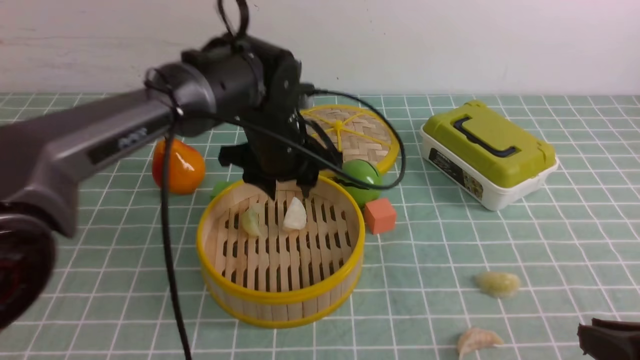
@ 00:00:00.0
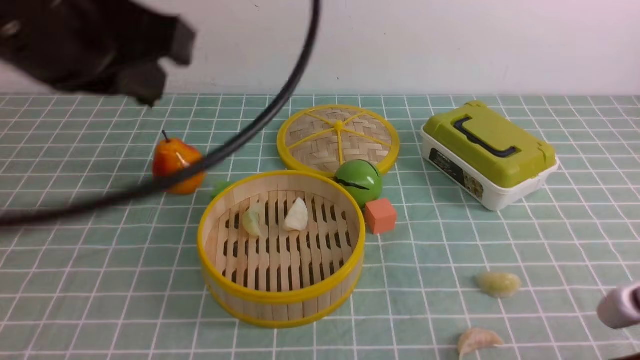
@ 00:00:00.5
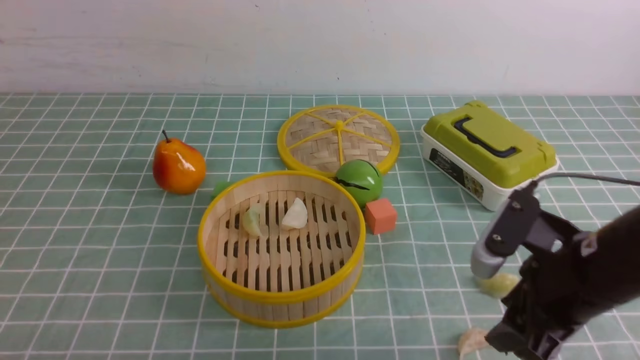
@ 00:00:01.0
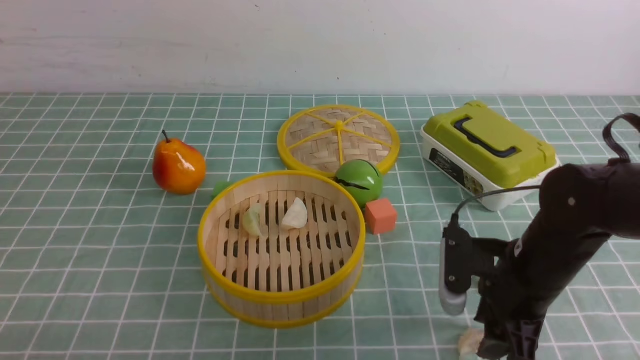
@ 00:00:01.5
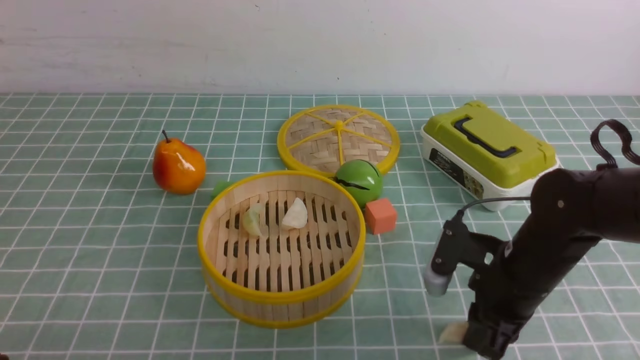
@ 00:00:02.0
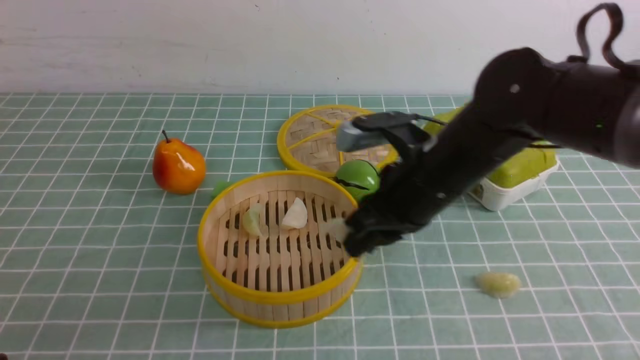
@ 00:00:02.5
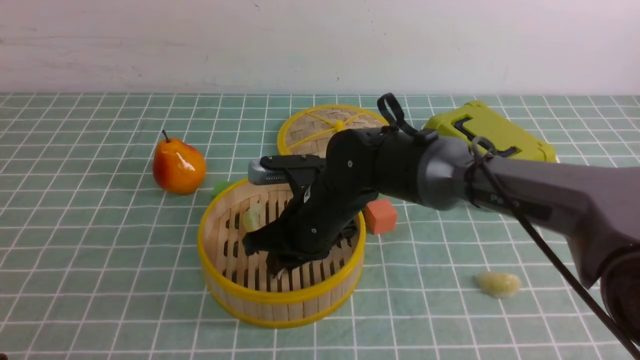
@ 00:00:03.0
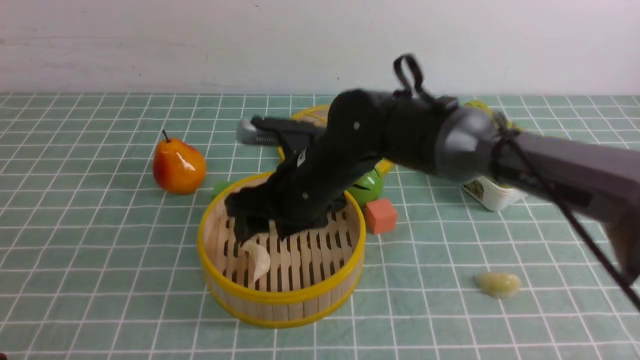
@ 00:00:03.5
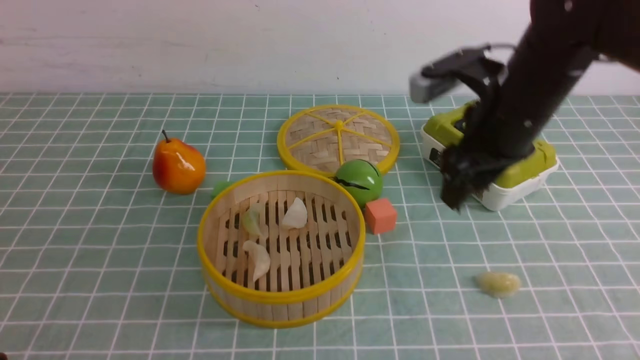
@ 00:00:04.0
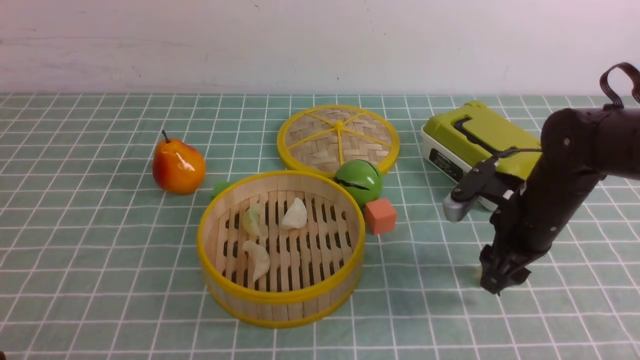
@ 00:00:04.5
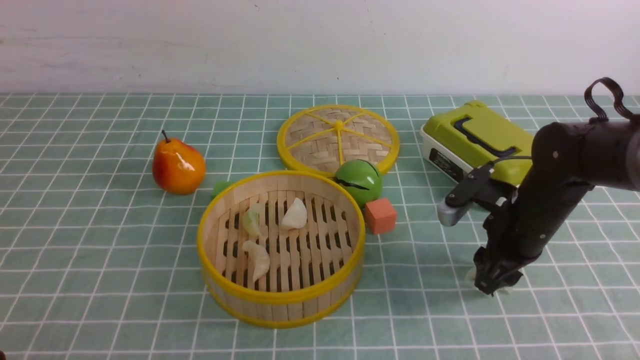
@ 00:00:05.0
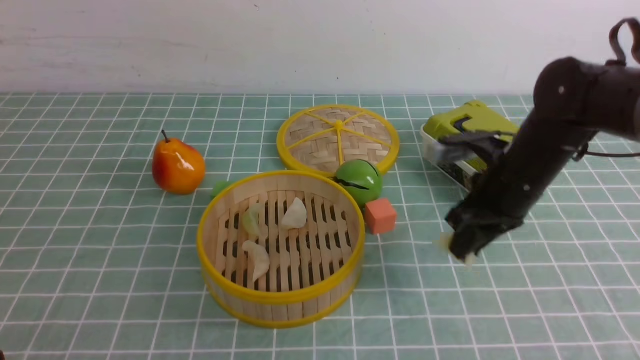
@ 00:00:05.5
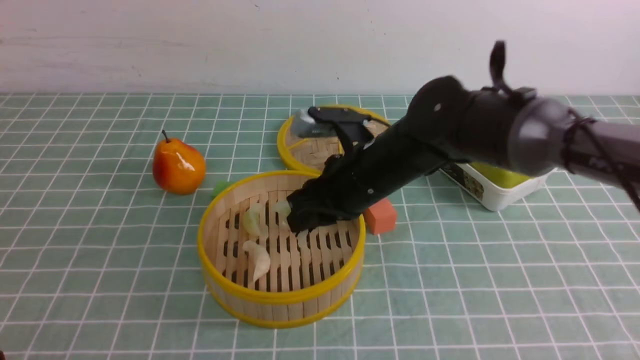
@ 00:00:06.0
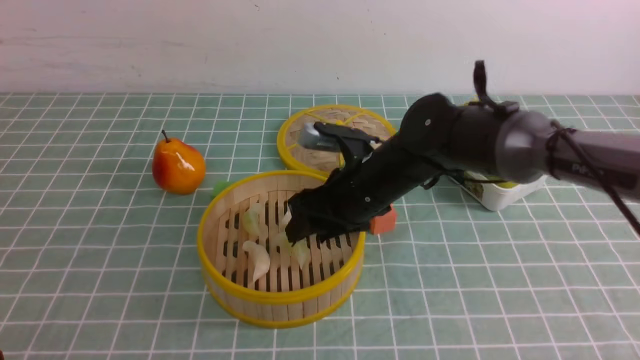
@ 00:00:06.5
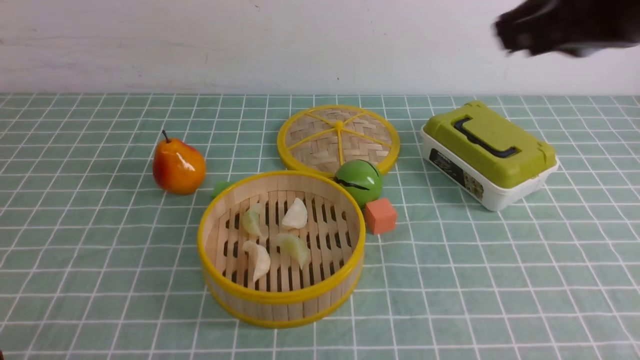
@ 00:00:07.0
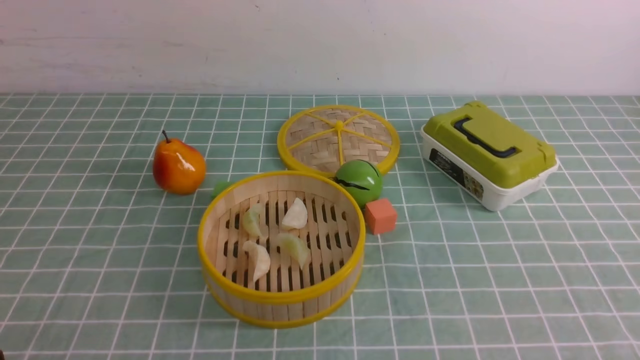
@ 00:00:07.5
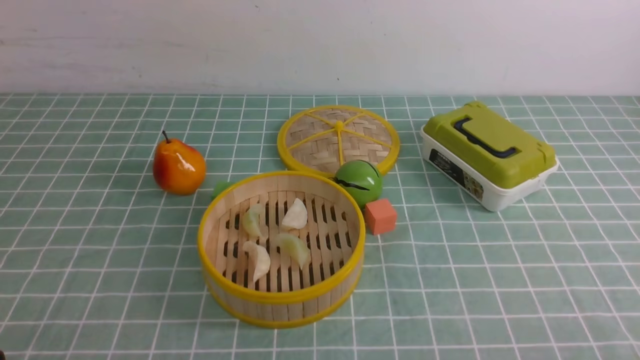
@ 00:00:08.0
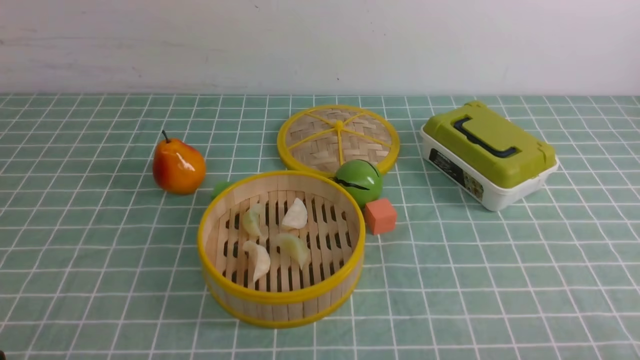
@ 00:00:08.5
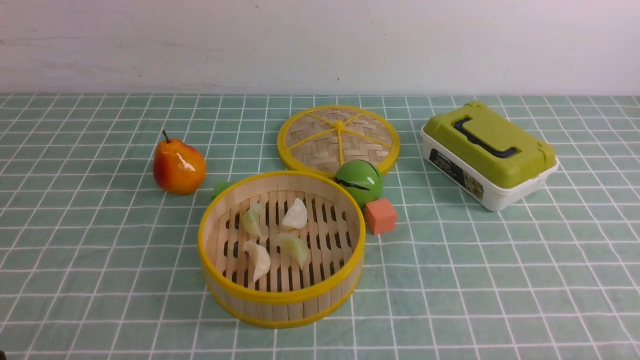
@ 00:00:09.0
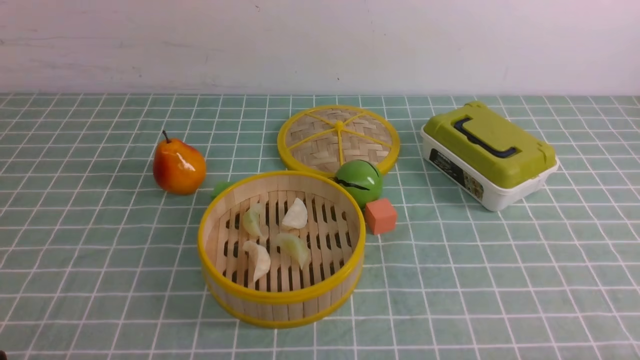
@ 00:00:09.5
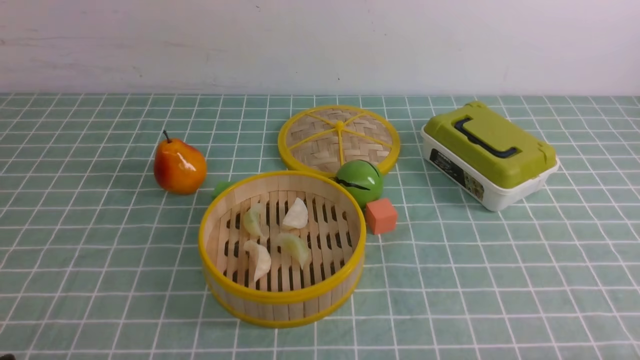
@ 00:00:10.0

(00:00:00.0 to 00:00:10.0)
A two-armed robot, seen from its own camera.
Task of the whole recording: put the dumplings into the steamer on the table with the blue tablecloth.
Step, 00:00:00.0 - 00:00:02.0: use the right arm to grab a dumpling.
Step, 00:00:02.5 - 00:00:03.0: use the right arm to put the dumpling into the steamer.
Step, 00:00:03.5 - 00:00:05.5: use the right arm to grab a dumpling.
Step, 00:00:06.0 - 00:00:06.5: use the right arm to put the dumpling into the steamer.
00:00:00.0 - 00:00:02.0: The left gripper shifts some 40 cm backward and to the left, and closes, while the right gripper heads forward, to the left and downward, covering about 20 cm, and opens, then closes once more.
00:00:02.0 - 00:00:04.0: The right gripper moves upward and forward, about 15 cm, moves approximately 20 cm to the left and comes back, and opens its fingers.
00:00:04.0 - 00:00:06.0: The right gripper moves to the left and downward, some 15 cm, and closes up.
00:00:06.0 - 00:00:08.0: The right gripper travels backward and to the right by about 40 cm, and closes its fingers.

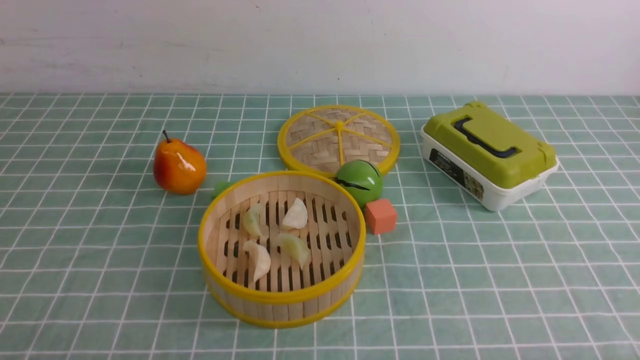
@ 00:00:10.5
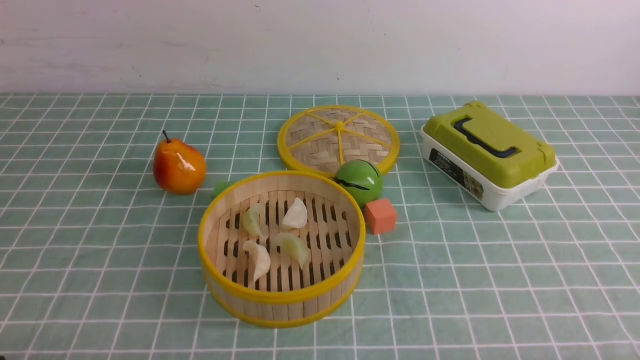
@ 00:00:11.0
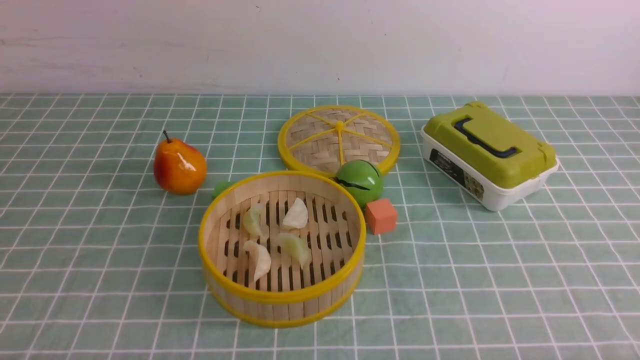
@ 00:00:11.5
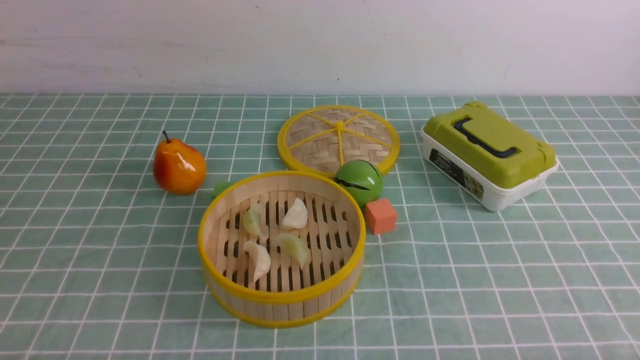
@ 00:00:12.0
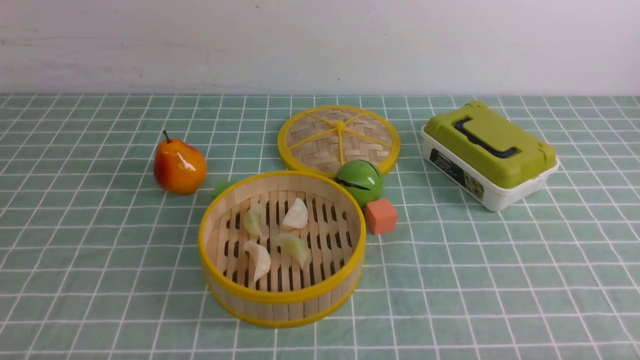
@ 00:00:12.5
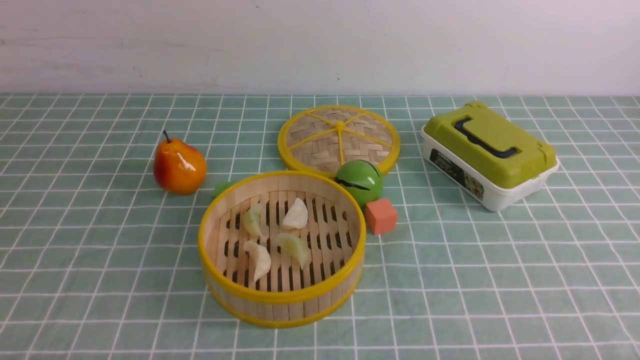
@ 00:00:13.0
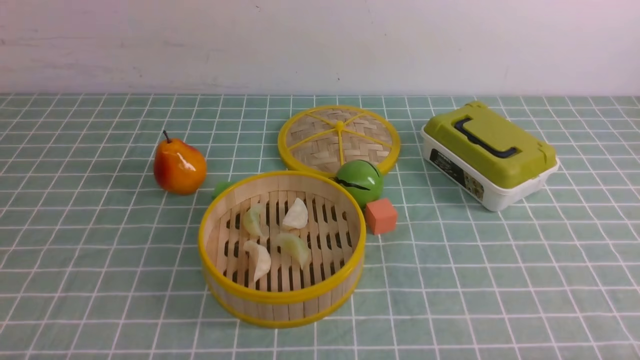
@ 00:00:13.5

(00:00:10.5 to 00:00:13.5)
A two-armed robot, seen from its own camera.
Task of the whole recording: put the dumplings into the steamer on the table with the blue tablecloth.
00:00:12.0 - 00:00:13.5: Neither gripper changes place.
